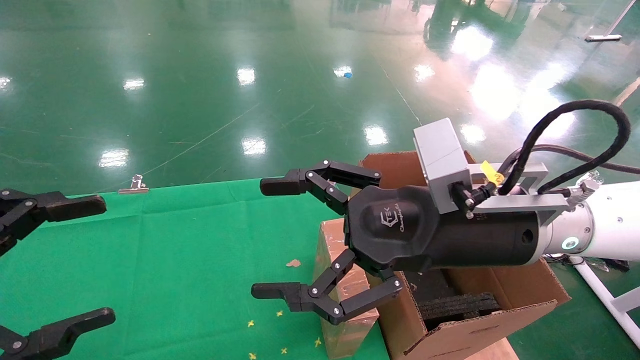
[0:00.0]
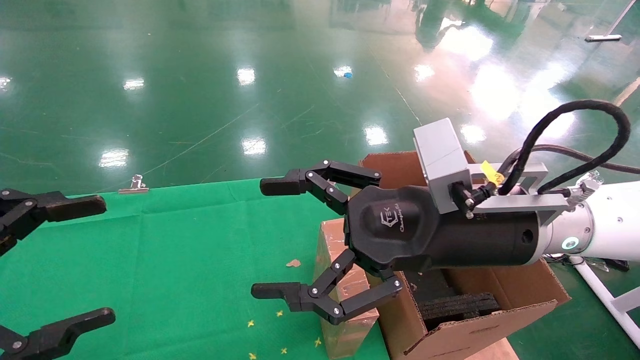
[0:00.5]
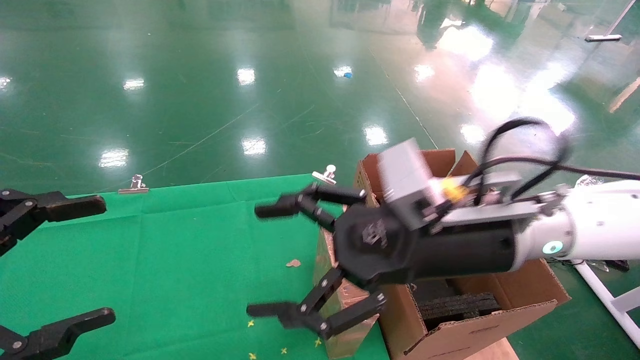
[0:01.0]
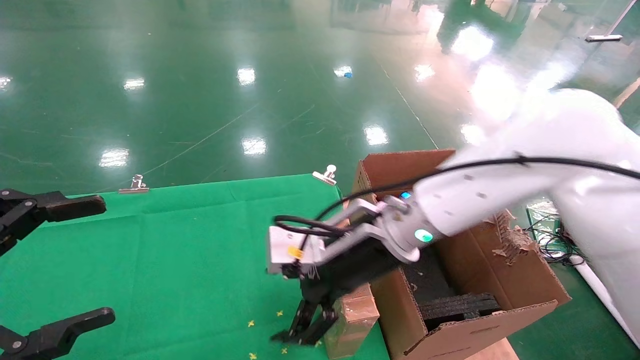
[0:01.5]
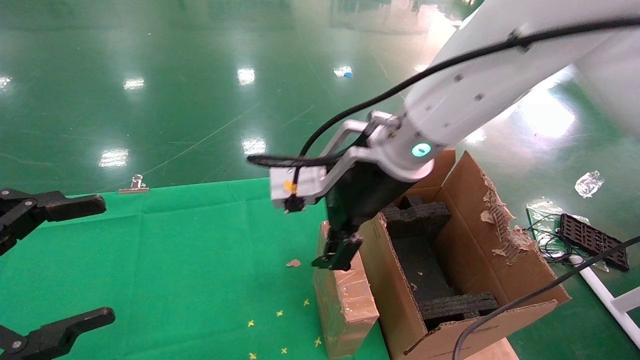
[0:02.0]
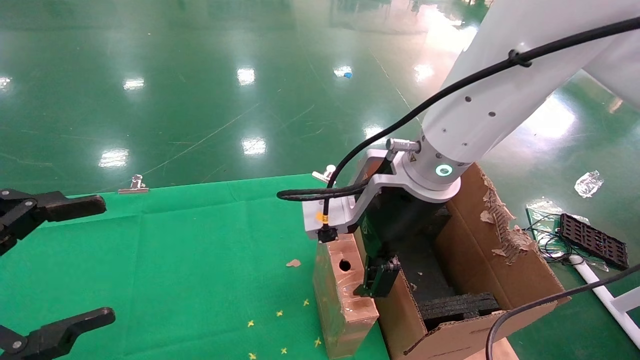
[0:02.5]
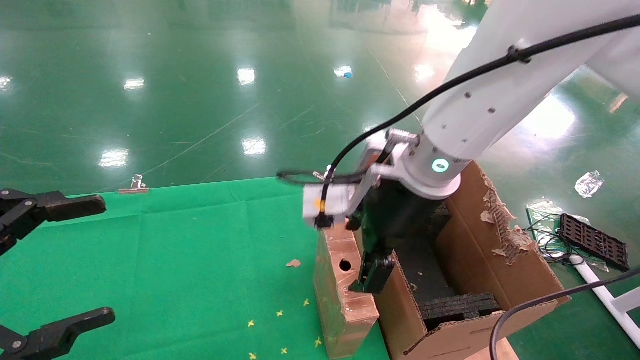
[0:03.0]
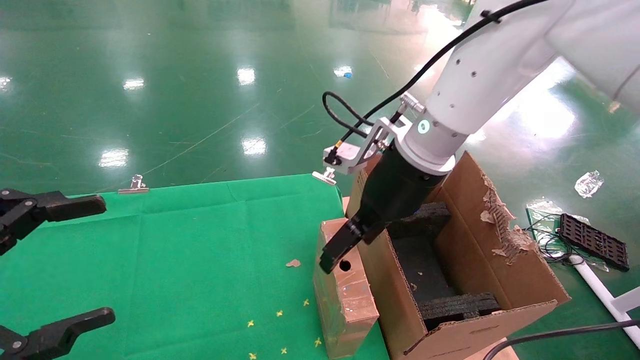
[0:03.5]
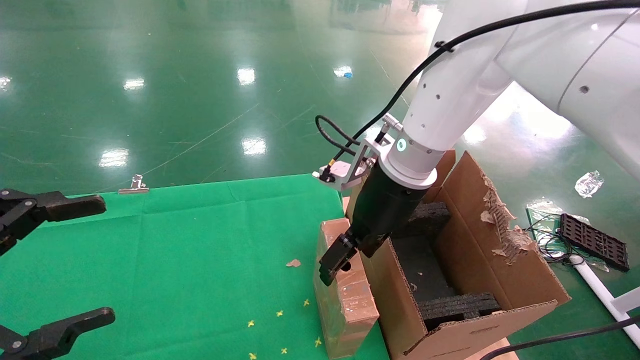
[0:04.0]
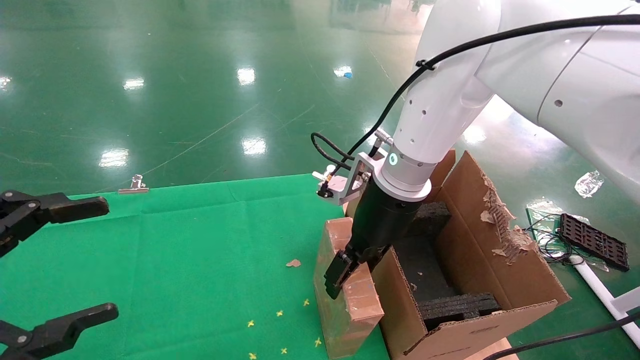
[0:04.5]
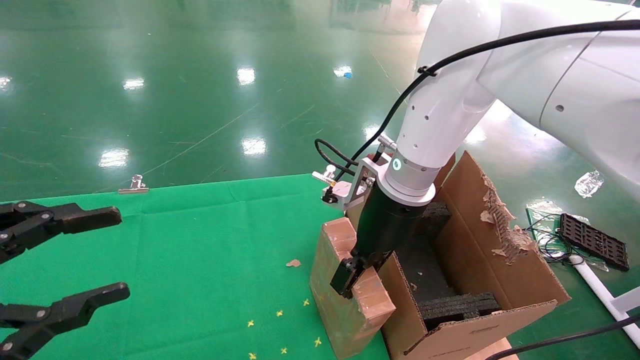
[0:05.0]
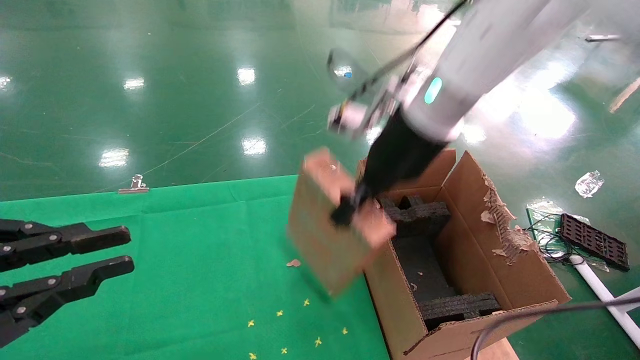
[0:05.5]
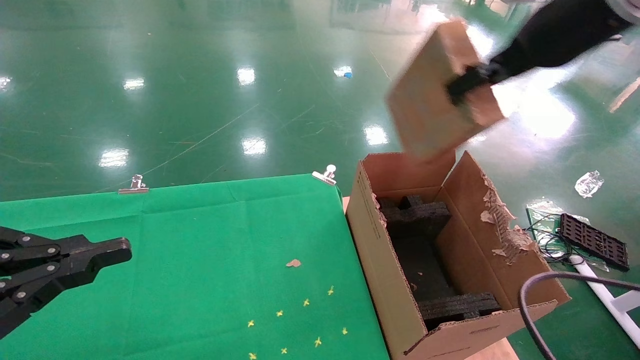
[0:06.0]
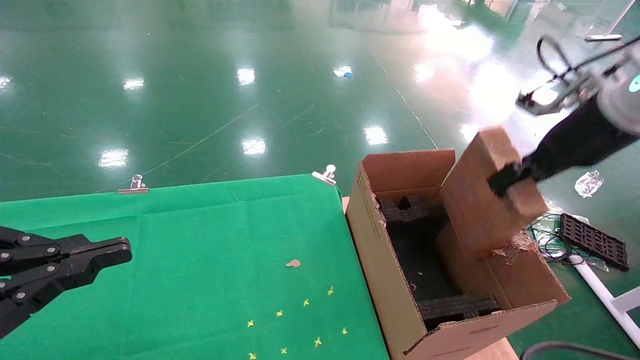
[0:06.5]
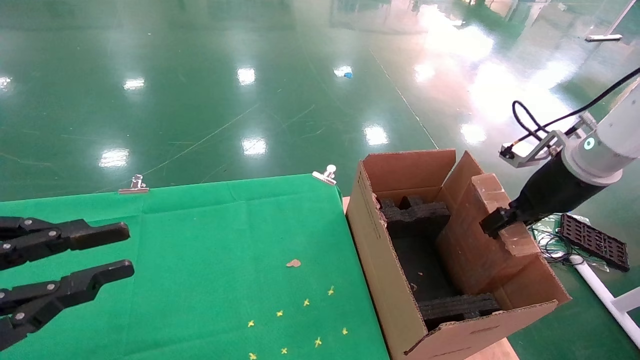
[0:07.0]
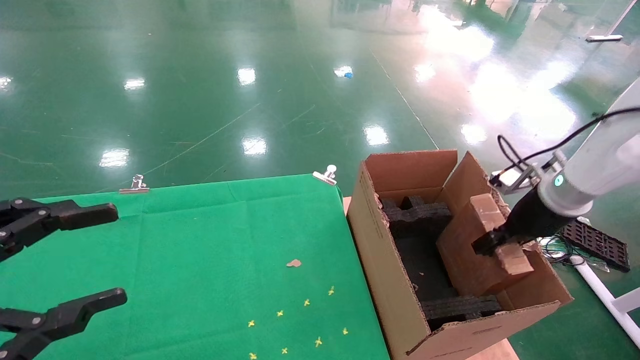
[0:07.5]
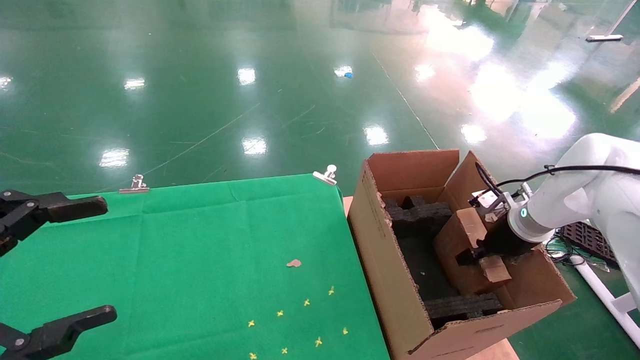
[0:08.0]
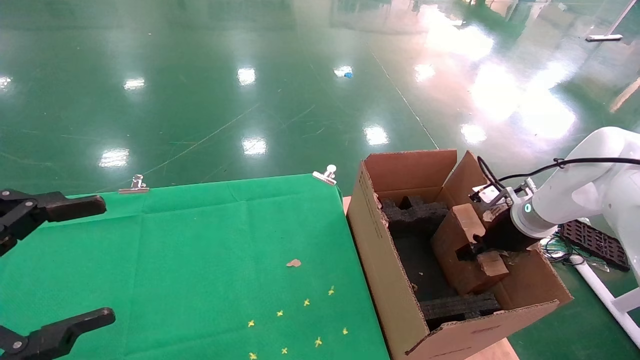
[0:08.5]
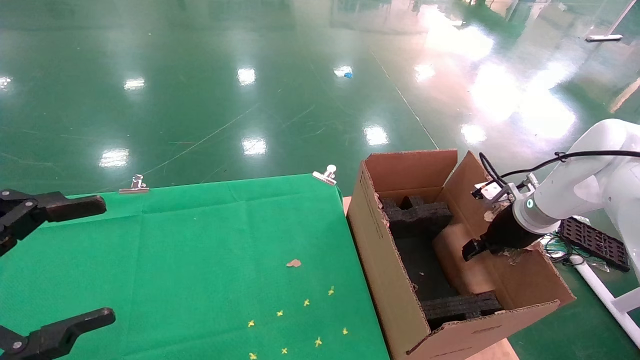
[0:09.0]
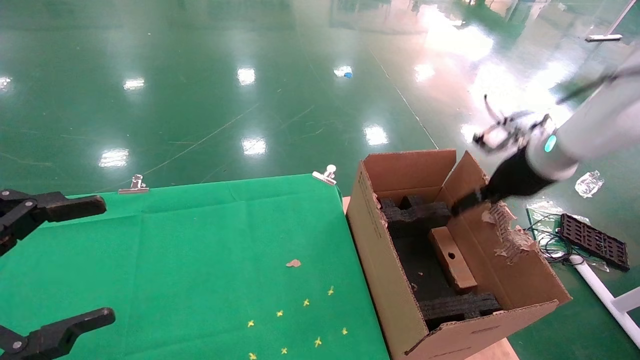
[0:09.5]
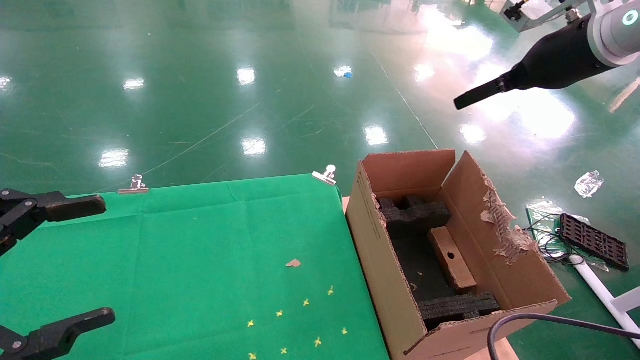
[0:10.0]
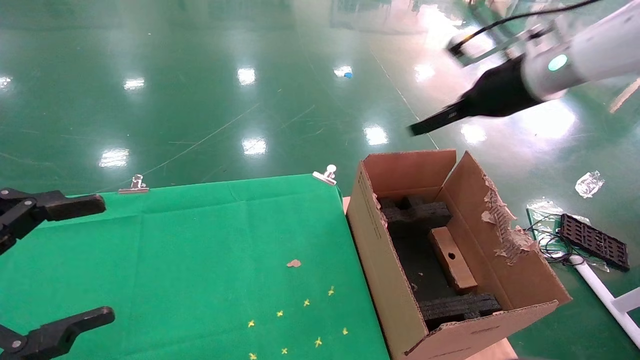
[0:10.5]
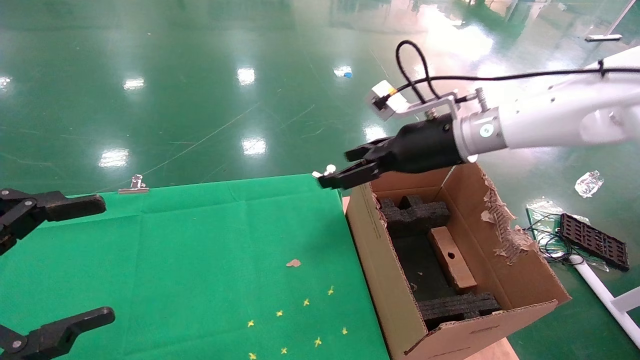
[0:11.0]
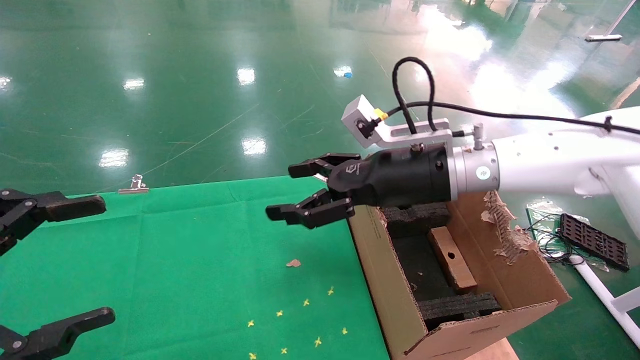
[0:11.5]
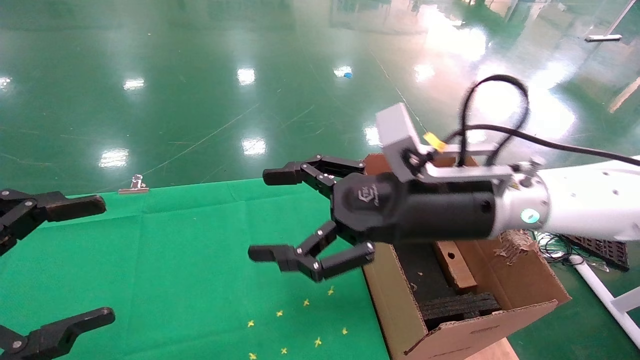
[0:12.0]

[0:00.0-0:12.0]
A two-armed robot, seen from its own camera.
Task of the whole recording: using a robotic arm to pick up a cardboard box and palace it the carton.
Step, 0:01.0 to 0:05.0: Pick up the mouse and the power cord paper box.
Step, 0:05.5 to 0:09.0: Place the mouse and the power cord paper box into the container.
0:00.0 to 0:02.0: The right gripper shifts about 10 cm forward and to the left.
0:02.0 to 0:04.0: The right gripper goes some 5 cm forward.
0:04.0 to 0:06.0: The right gripper shifts some 25 cm to the right and upward, and closes up; the left gripper closes up.
0:06.0 to 0:08.0: The right gripper is displaced downward by approximately 30 cm. Meanwhile the left gripper opens up.
0:08.0 to 0:10.0: The right gripper travels upward by roughly 25 cm, and opens.
0:10.0 to 0:12.0: The right gripper shifts about 25 cm to the left, downward and backward.

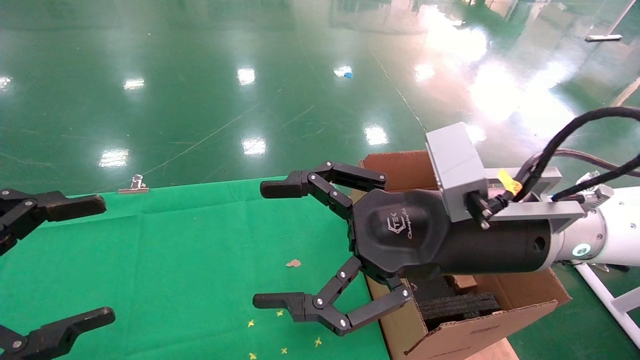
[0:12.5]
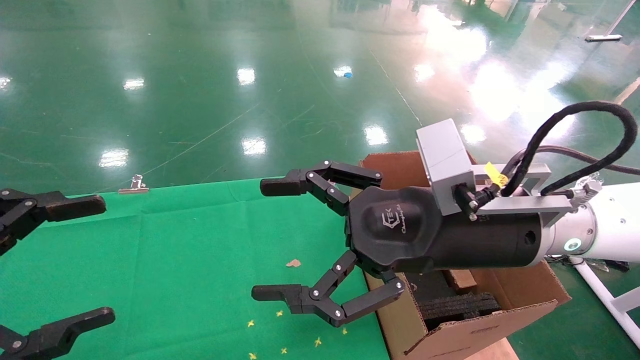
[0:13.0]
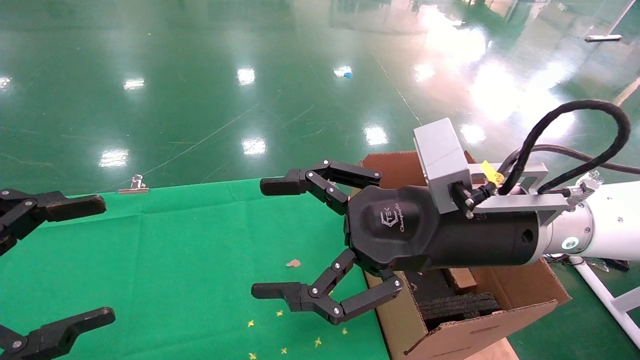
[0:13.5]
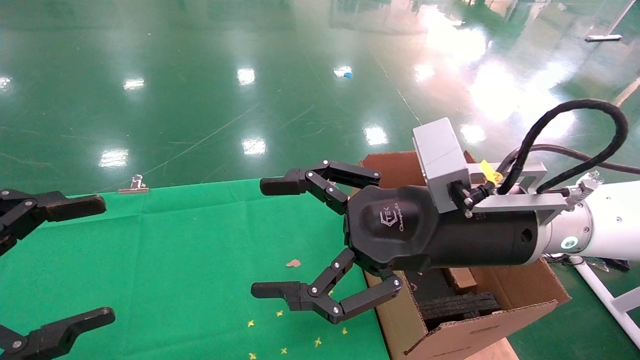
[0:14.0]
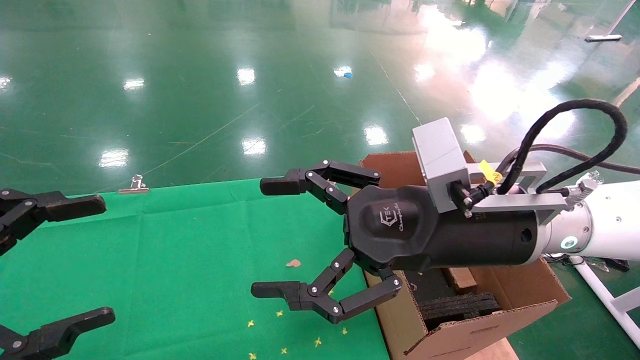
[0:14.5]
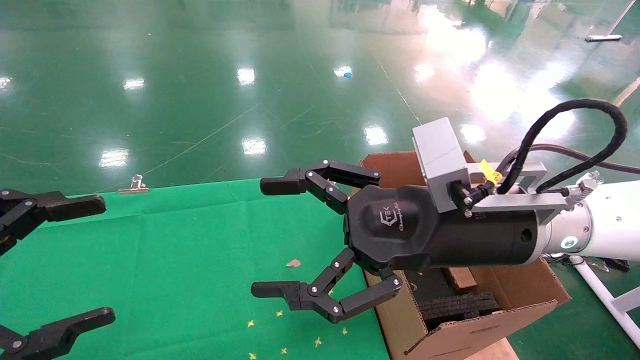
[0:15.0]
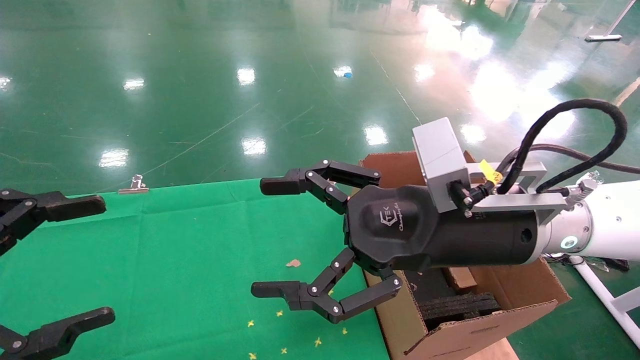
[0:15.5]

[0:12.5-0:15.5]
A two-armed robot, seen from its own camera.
Task of the whole recording: using a robotic arm to pick up a cardboard box and palace it the carton.
0:12.5 to 0:15.5: Neither gripper changes place.

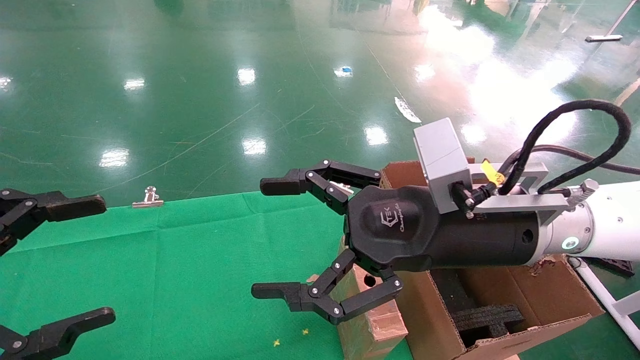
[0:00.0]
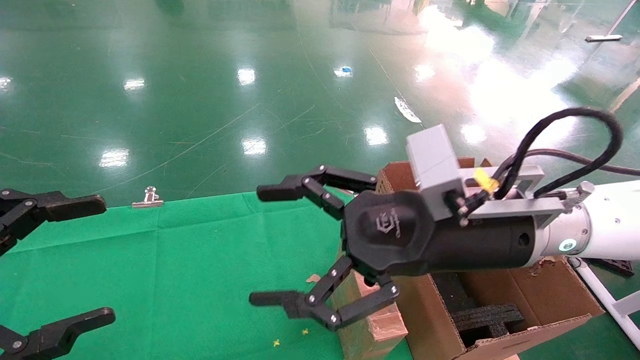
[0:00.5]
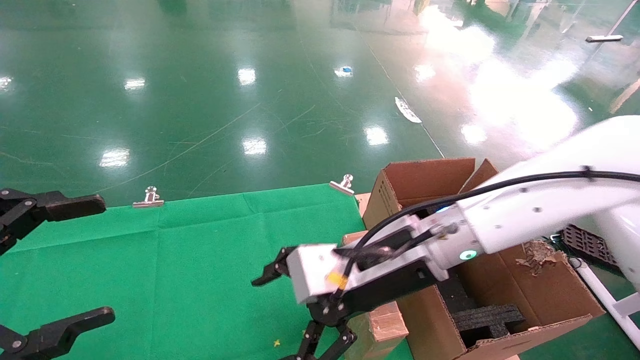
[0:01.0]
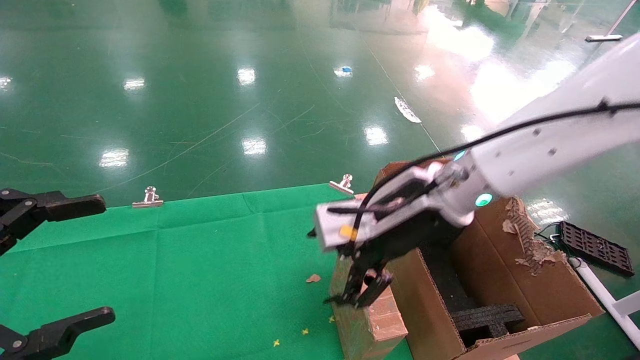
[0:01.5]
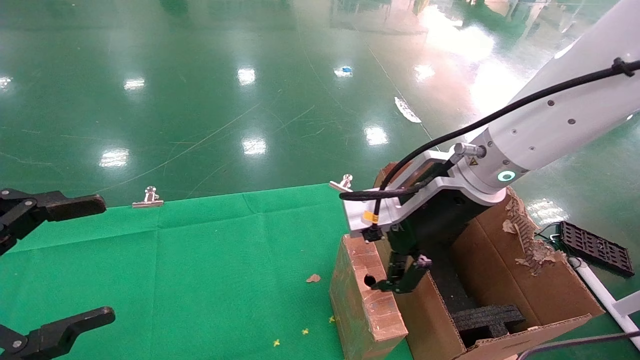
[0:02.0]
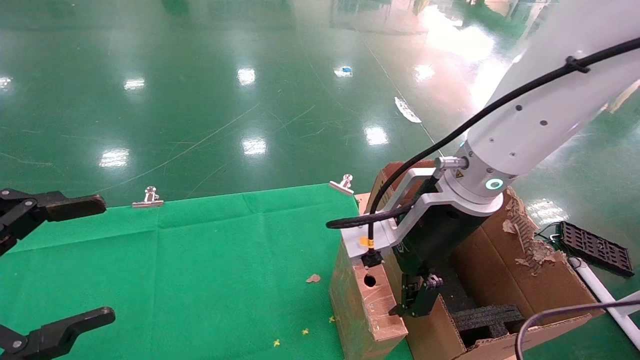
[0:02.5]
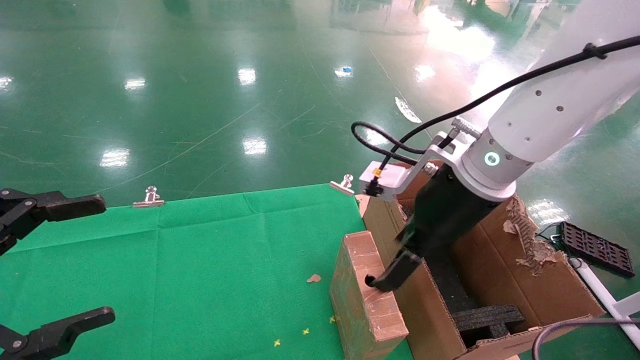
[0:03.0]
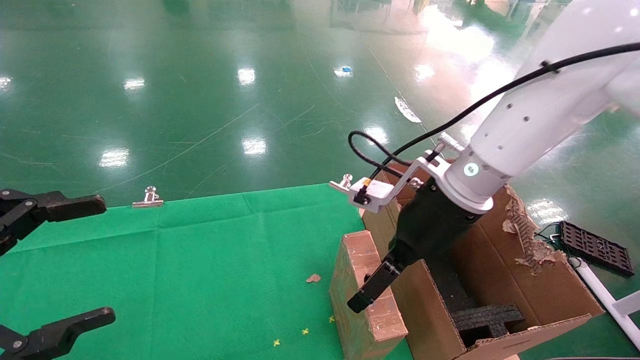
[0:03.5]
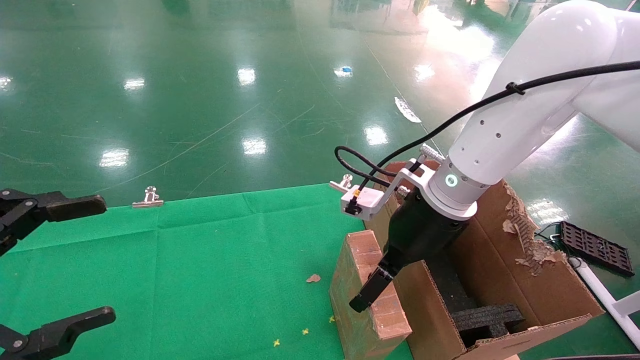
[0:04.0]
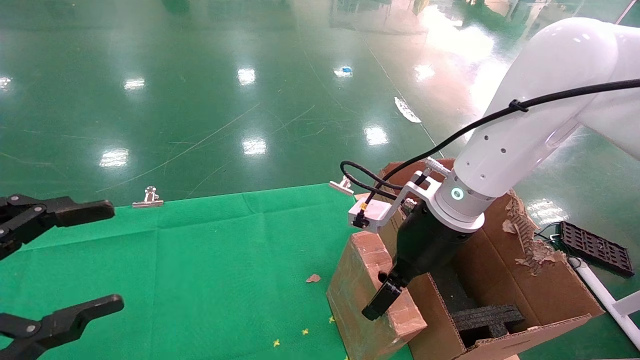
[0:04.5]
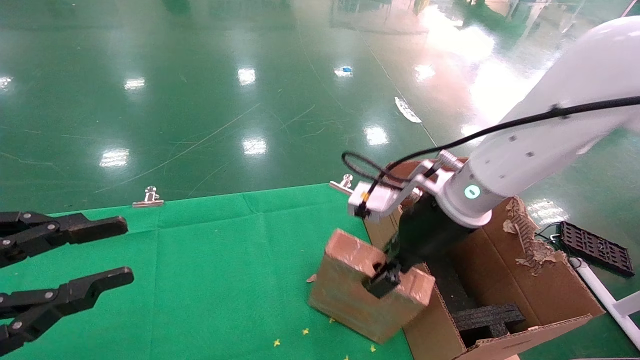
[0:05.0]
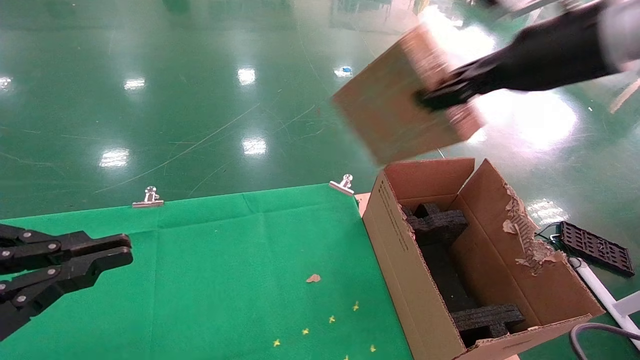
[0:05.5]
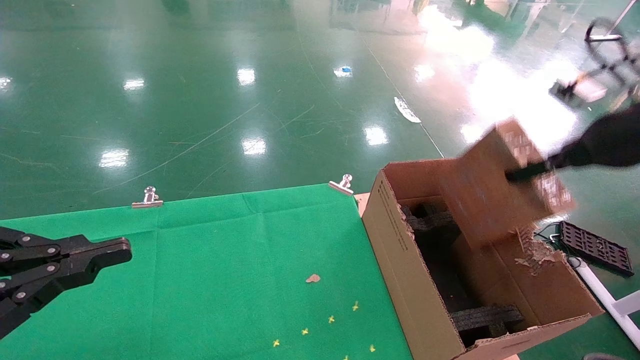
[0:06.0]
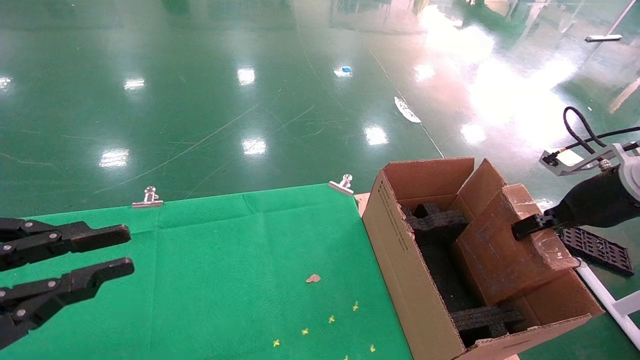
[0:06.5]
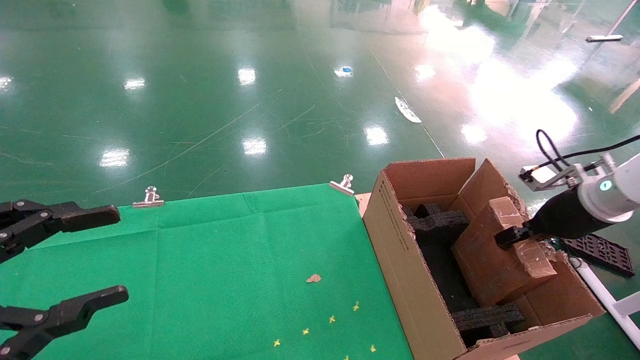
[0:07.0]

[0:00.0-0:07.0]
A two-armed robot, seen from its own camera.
Task of the whole recording: using a robotic arm to pick up a cardboard box and palace it the carton.
Step, 0:01.0 to 0:04.5: Pick up the mouse and the power cord paper box.
0:00.0 to 0:02.0: The right gripper goes about 5 cm forward.
0:03.5 to 0:05.0: The right gripper closes up. Meanwhile the left gripper closes its fingers.
0:05.0 to 0:07.0: The left gripper closes, then reopens; the right gripper moves to the right, about 25 cm.
